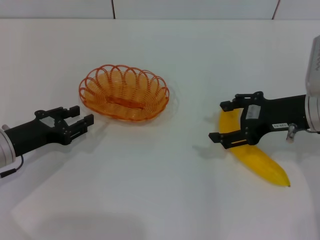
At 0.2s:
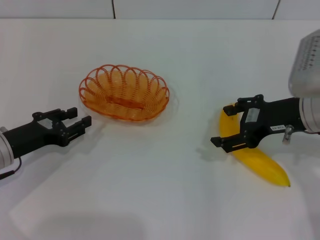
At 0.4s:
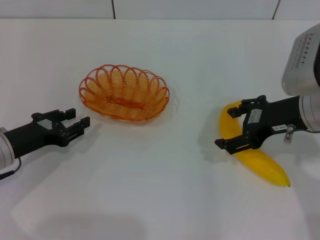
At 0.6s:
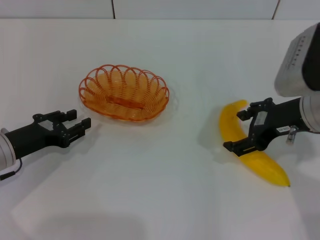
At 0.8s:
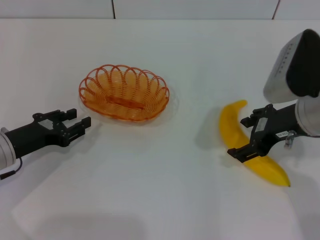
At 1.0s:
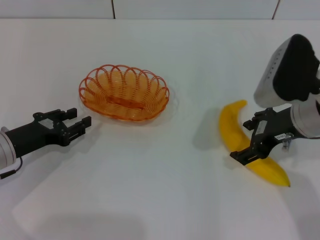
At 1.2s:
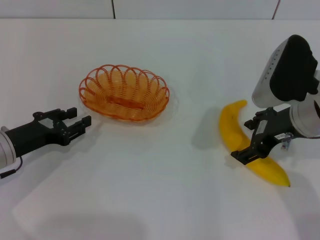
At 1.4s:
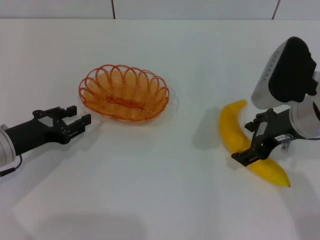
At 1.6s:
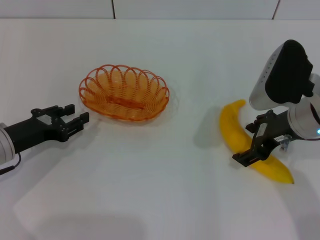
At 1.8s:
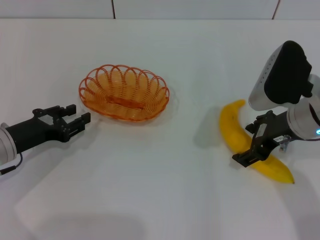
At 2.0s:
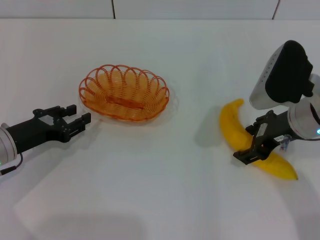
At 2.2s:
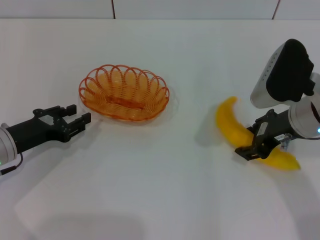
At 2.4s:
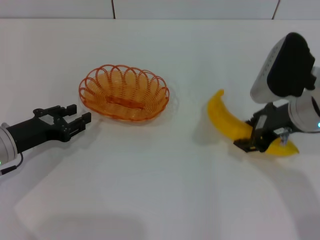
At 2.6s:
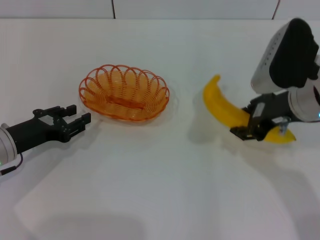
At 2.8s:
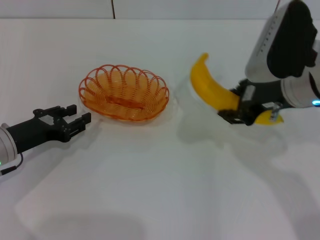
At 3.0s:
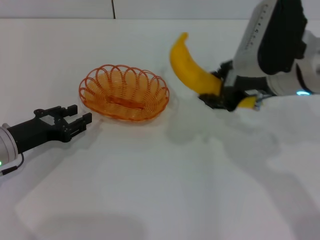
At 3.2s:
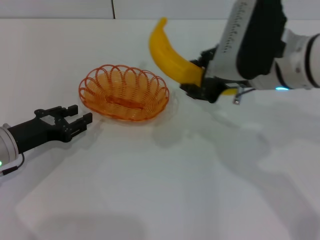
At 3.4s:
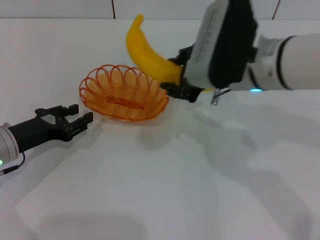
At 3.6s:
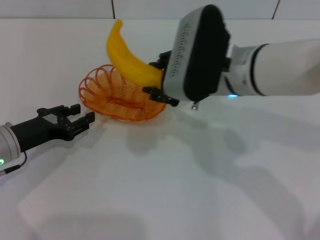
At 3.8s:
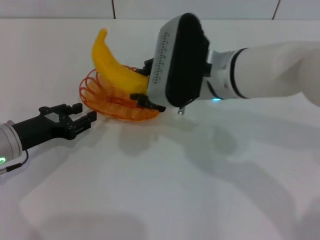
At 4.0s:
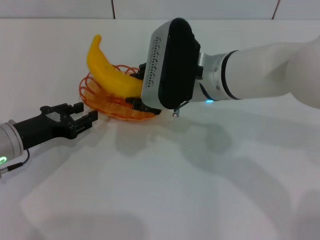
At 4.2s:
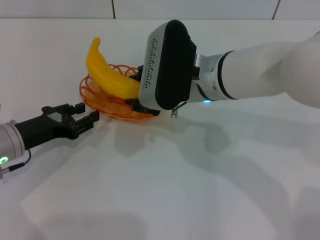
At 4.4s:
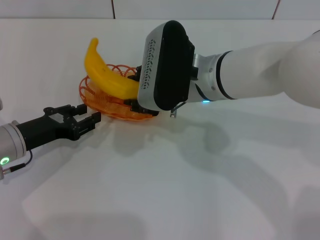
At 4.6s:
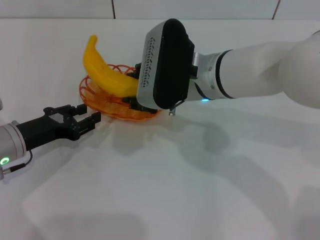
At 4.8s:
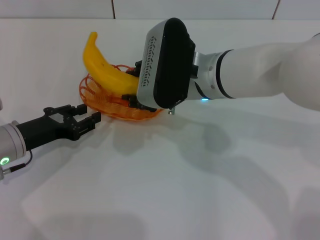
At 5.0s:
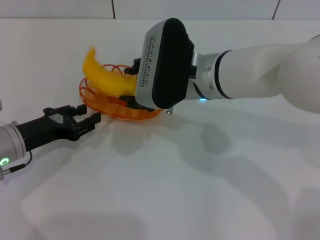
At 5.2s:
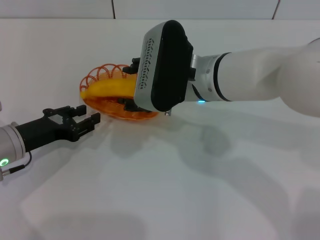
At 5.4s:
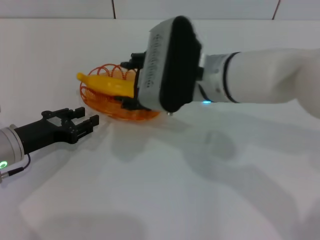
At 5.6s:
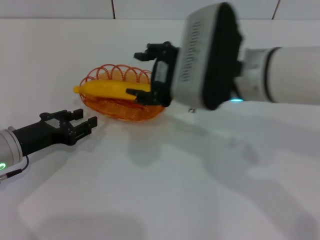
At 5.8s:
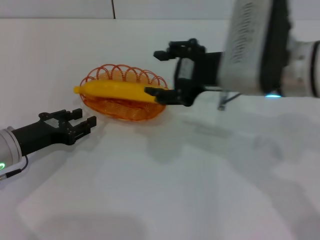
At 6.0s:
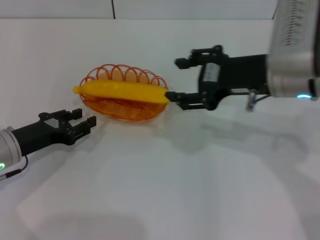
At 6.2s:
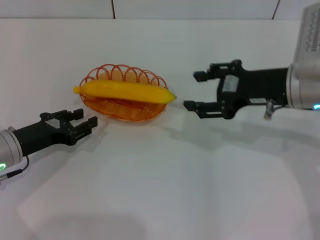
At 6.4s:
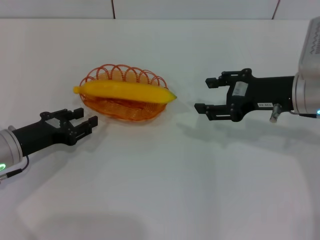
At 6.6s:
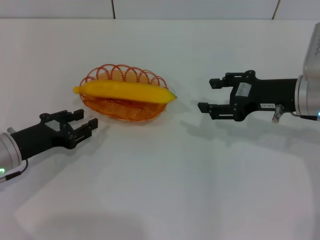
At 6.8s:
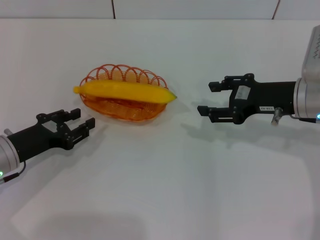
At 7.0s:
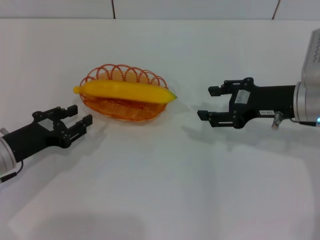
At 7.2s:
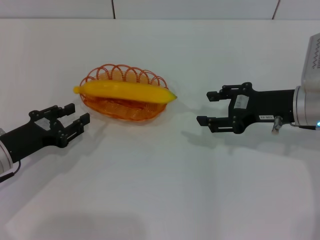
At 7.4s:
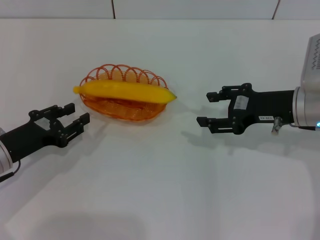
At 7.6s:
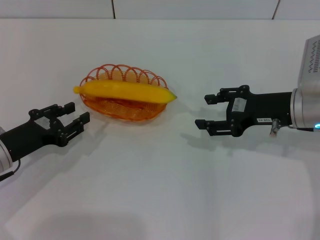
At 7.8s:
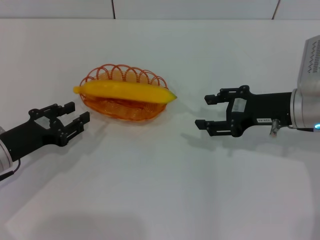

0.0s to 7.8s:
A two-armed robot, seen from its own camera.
Step, 0.0s to 3.0s: Pick up the banana with the right gripper.
Step, 3.2s to 6.6s: Place the banana into the basket with the right gripper.
1.6s to 3.2s: The right gripper travels to the left and upward by about 10 cm, and closes its fingers.
3.2s to 4.6s: The right gripper goes roughly 10 cm to the left.
4.6s to 6.2s: The right gripper is displaced to the right by about 15 cm, and opens up.
6.2s to 7.8s: The right gripper ends up approximately 5 cm from where it was.

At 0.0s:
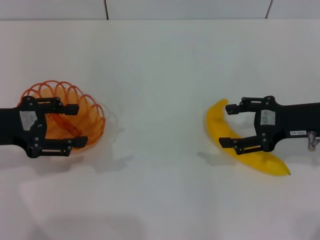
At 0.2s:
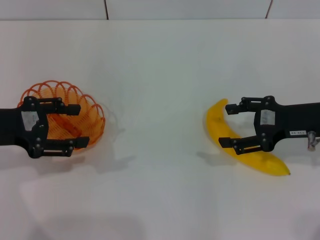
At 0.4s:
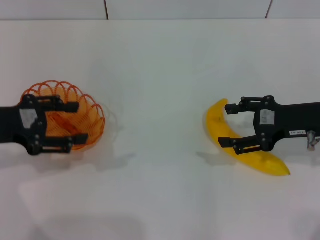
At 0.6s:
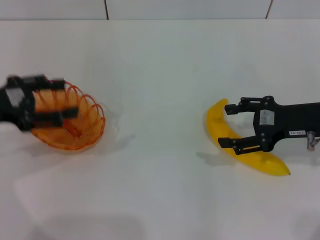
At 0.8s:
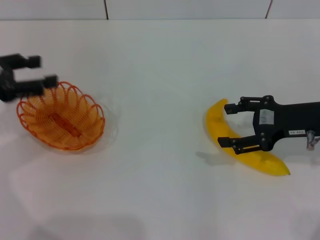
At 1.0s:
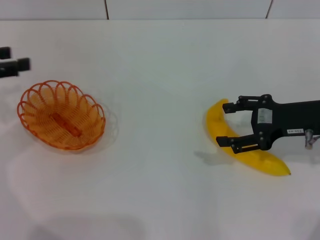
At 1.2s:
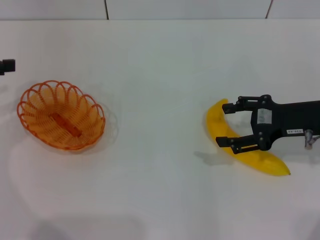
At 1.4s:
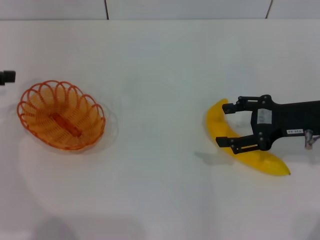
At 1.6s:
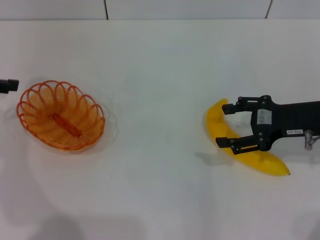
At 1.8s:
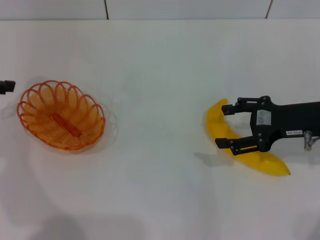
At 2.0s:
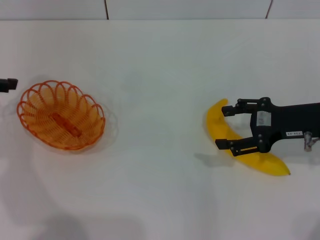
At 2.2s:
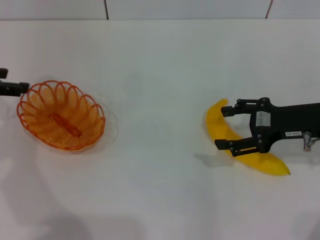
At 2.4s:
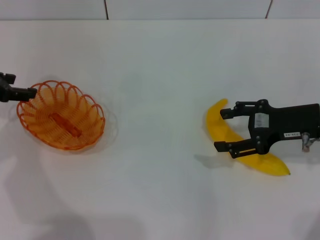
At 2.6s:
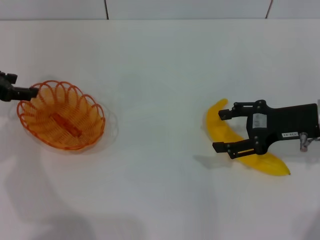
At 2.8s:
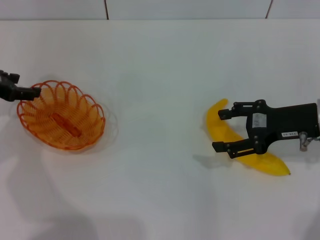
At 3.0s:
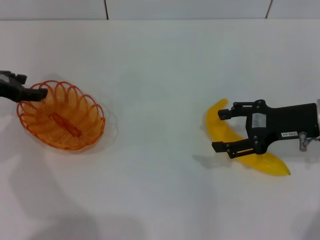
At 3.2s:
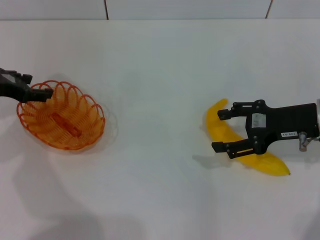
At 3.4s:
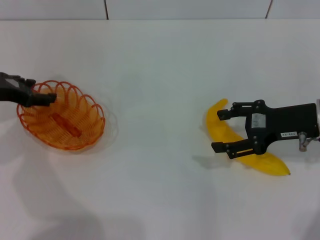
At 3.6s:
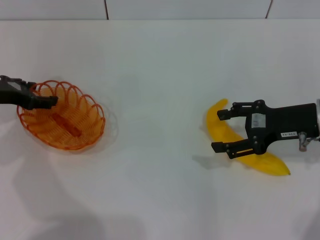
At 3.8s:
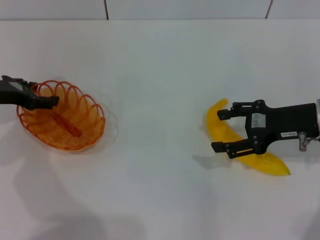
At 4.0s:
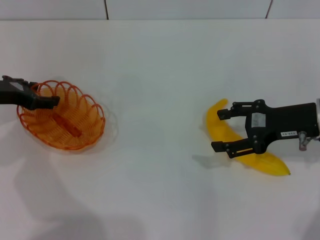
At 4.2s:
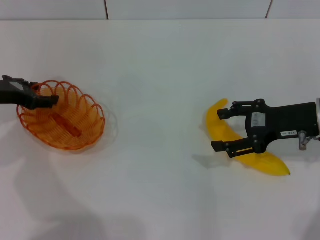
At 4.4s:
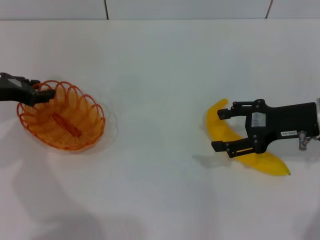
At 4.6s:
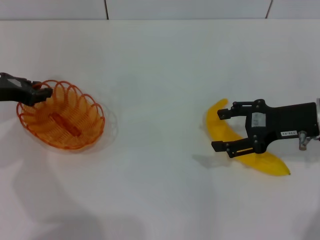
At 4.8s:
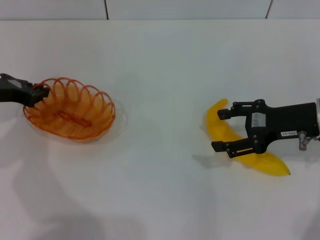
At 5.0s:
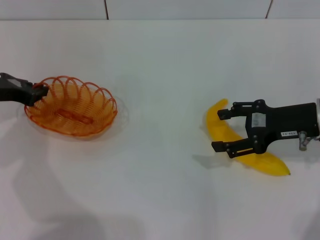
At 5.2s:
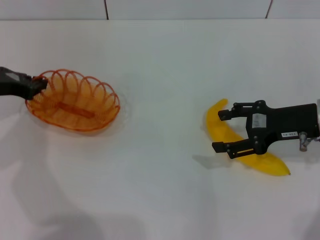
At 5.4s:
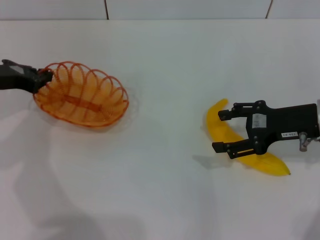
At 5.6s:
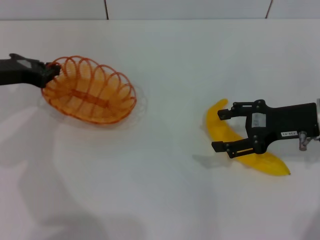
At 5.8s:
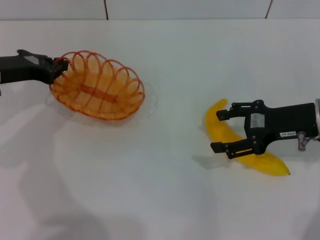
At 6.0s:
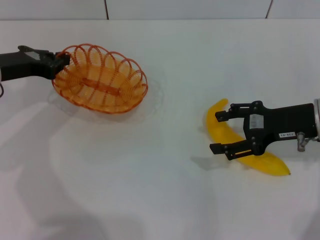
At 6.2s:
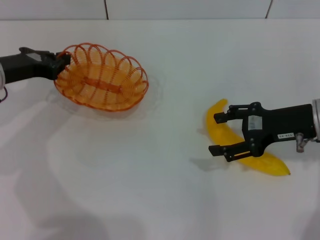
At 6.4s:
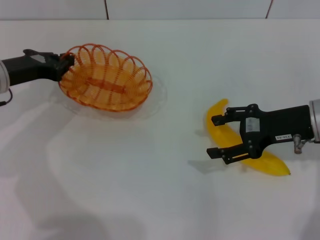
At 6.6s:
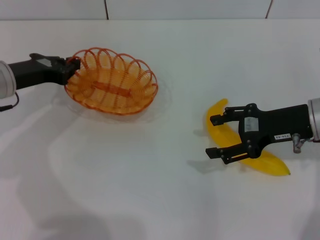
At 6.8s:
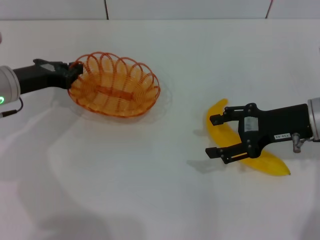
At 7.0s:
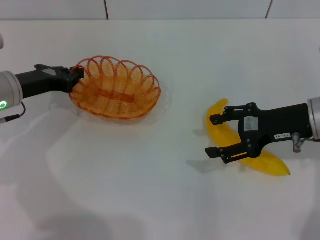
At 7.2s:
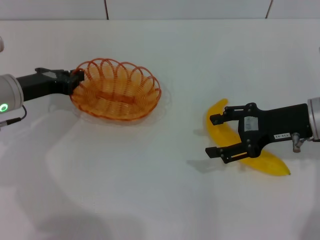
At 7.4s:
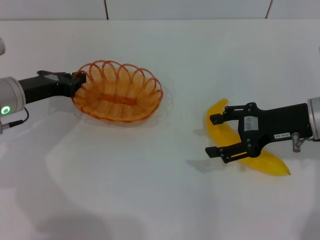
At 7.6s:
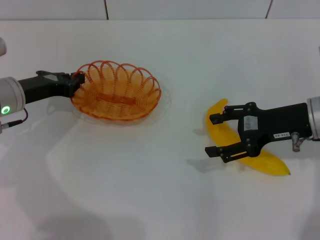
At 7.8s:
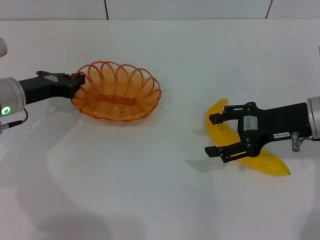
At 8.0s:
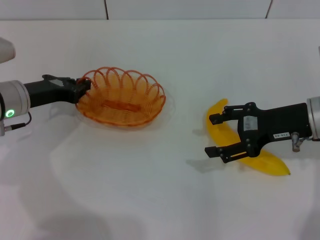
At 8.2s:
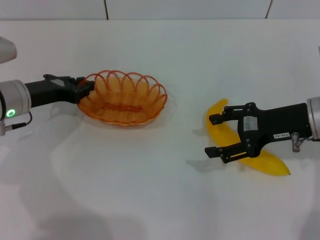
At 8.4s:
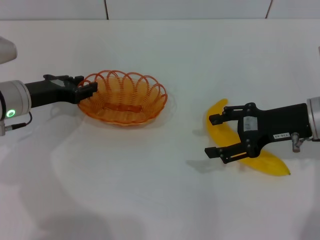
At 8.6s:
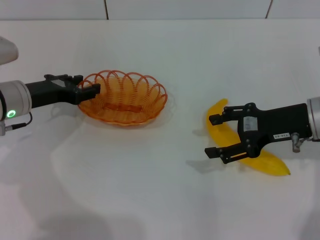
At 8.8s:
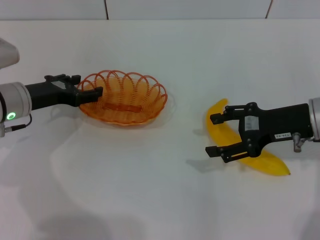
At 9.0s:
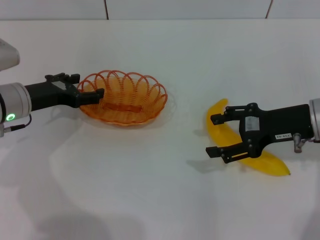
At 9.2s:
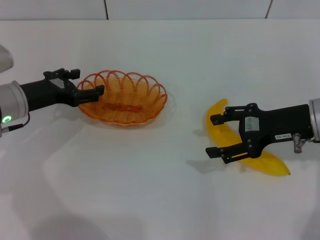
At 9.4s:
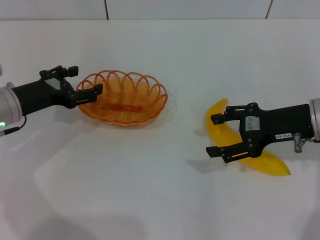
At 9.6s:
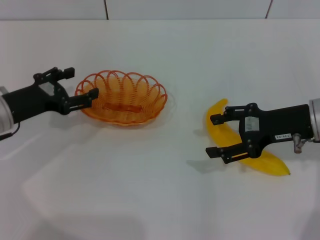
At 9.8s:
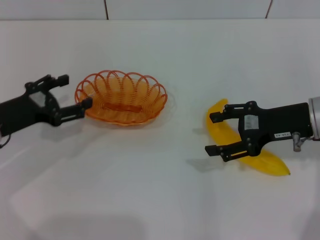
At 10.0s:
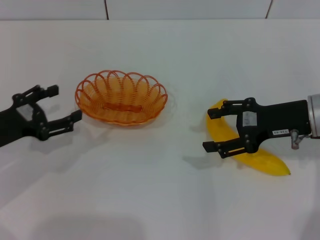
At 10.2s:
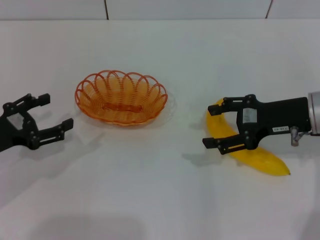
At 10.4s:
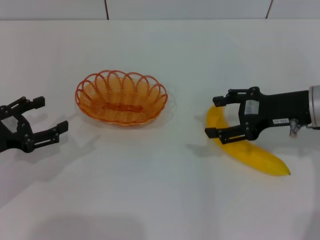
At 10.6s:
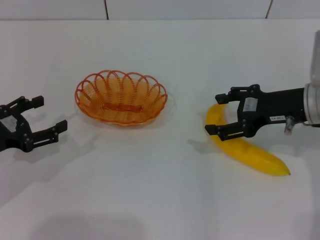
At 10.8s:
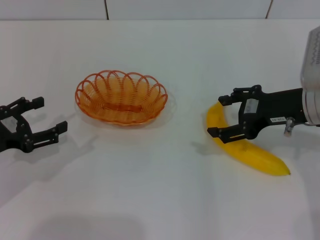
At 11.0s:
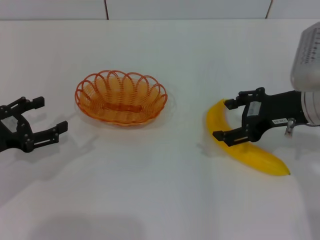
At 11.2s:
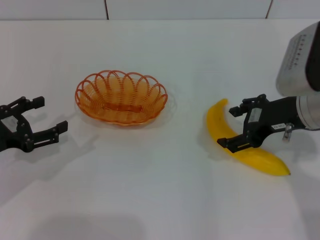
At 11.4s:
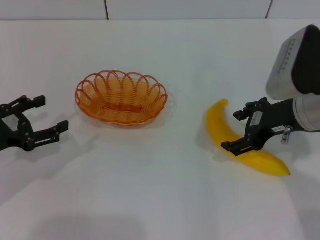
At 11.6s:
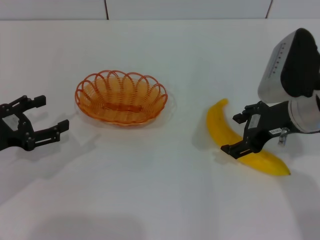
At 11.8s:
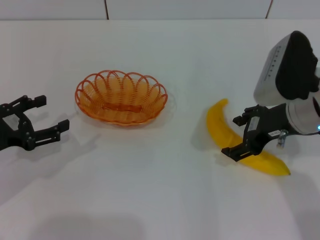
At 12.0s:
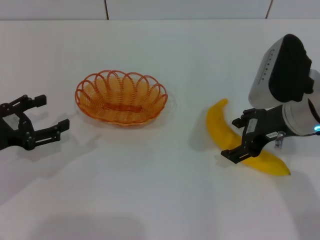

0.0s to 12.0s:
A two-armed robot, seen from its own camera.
Step, 0.0s to 5.8s: Pick up the basket with the left gripper.
Step, 6.0s to 9.6s: Place the basket in the center of view with the left gripper.
0.0s to 1.6s: The left gripper travels to the left and forward by some 10 cm.
1.6s to 3.0s: The left gripper travels downward by some 5 cm.
3.0s to 4.4s: The grippers stay close to where they were, moving slightly.
4.4s to 6.0s: The left gripper closes its fingers.
6.0s to 7.6s: The left gripper changes place by approximately 5 cm.
7.6s to 9.0s: The left gripper opens.
9.0s to 10.4s: The left gripper travels backward and to the left by roughly 10 cm.
10.4s to 12.0s: The right gripper travels to the left by roughly 5 cm.

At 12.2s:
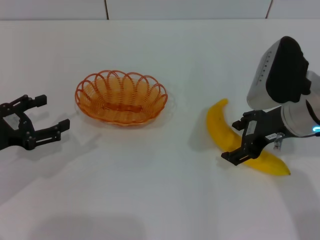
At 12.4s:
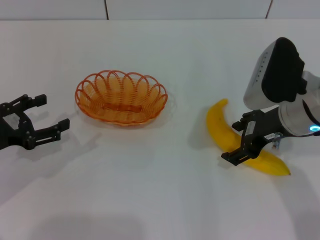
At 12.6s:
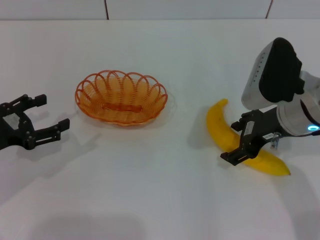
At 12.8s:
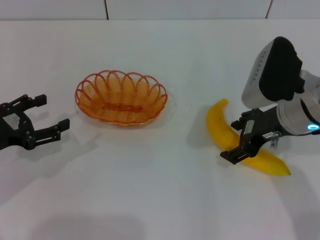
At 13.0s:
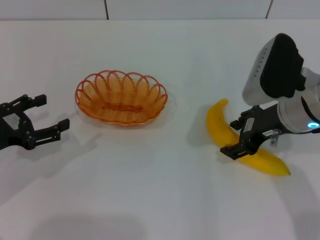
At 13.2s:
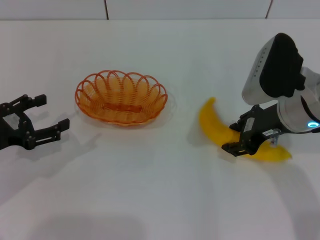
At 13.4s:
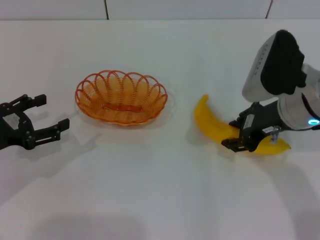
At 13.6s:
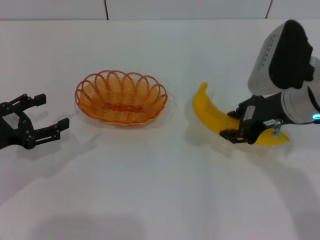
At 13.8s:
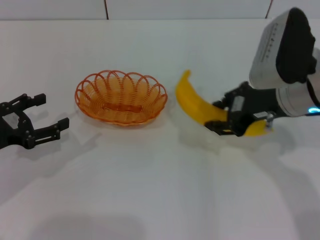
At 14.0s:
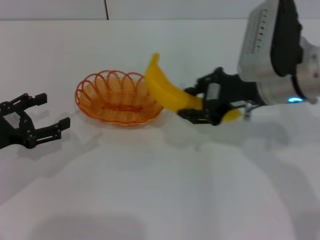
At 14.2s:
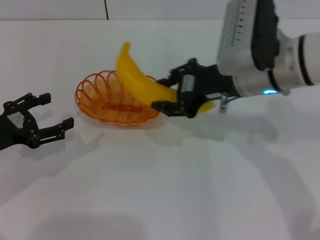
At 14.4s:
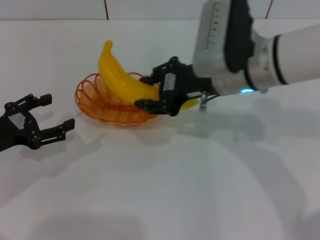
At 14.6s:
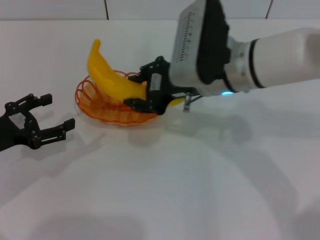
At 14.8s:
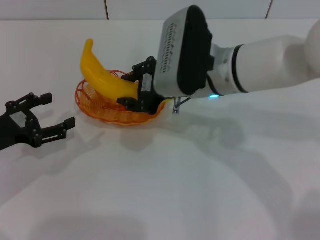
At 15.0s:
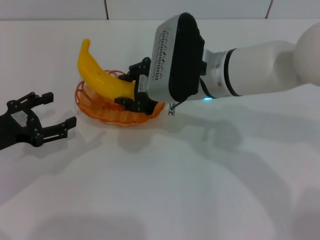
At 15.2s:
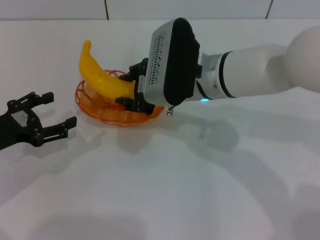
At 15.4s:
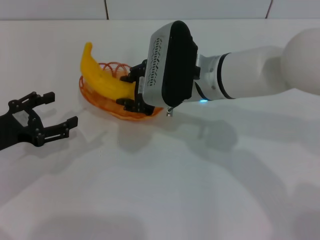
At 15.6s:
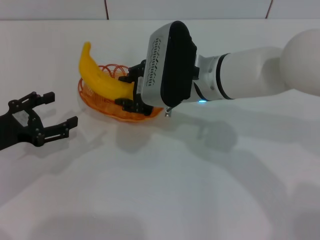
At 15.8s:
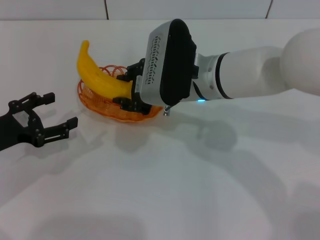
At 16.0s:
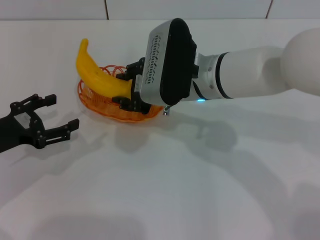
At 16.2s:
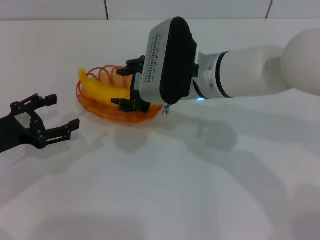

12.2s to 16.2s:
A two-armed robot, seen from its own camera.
12.2s to 13.6s: The right gripper closes its fingers.
13.6s to 14.8s: The right gripper is displaced to the left by approximately 10 cm.
14.8s to 16.2s: The grippers make only small movements.
